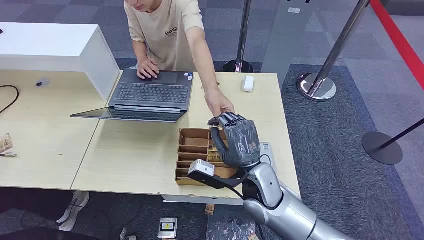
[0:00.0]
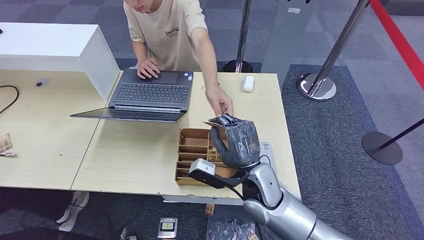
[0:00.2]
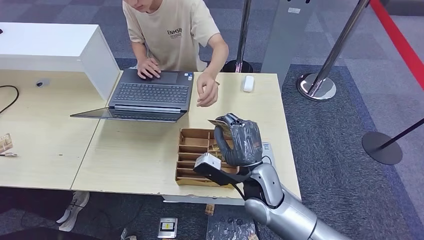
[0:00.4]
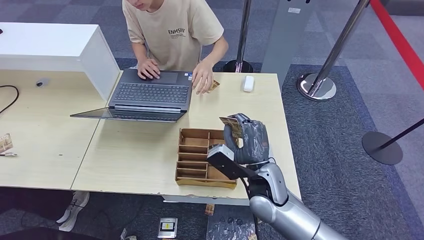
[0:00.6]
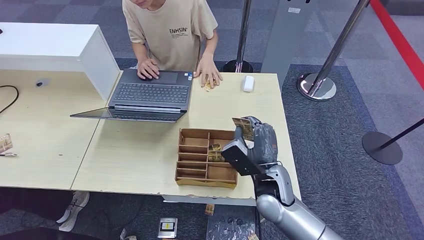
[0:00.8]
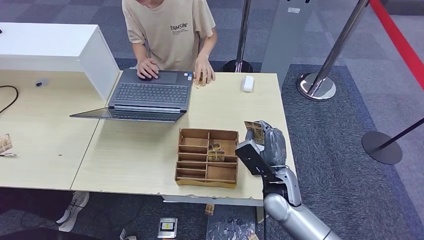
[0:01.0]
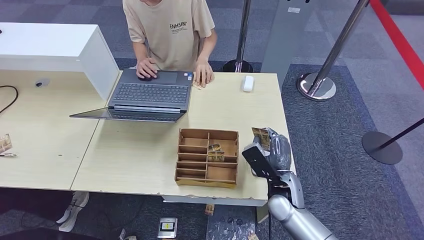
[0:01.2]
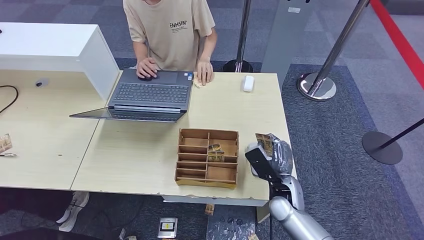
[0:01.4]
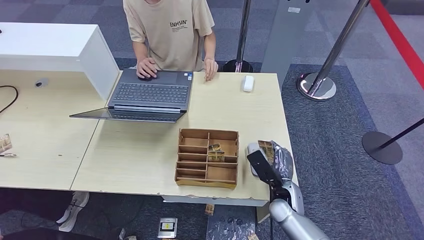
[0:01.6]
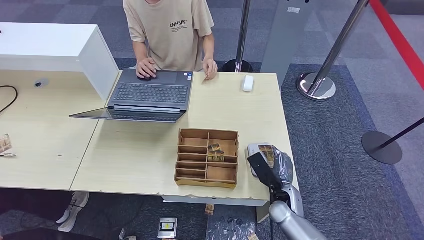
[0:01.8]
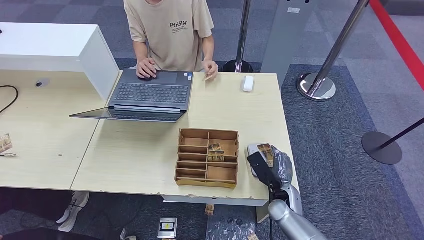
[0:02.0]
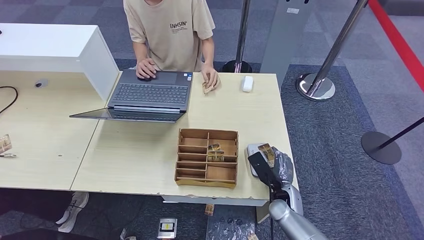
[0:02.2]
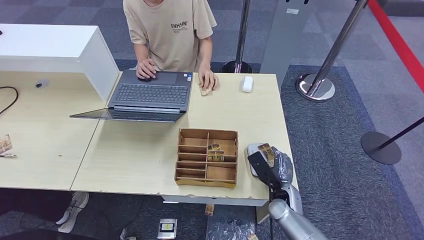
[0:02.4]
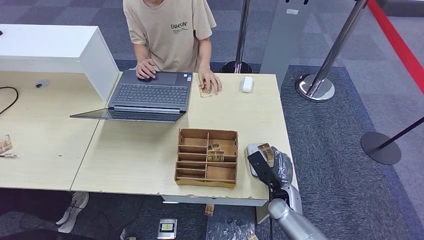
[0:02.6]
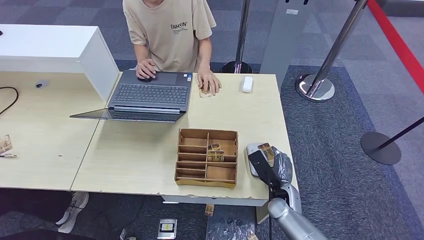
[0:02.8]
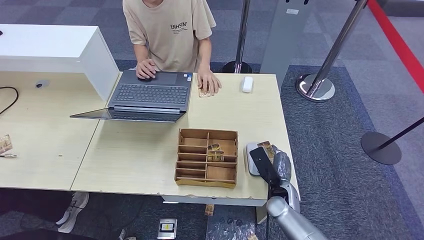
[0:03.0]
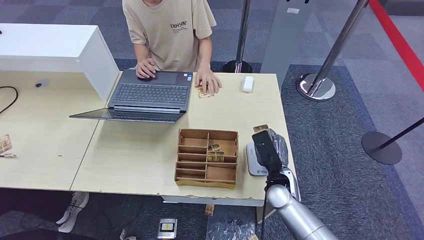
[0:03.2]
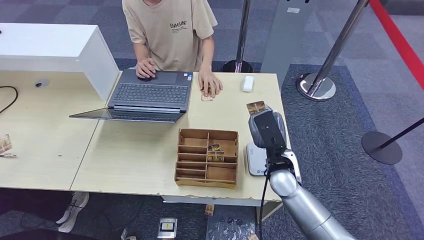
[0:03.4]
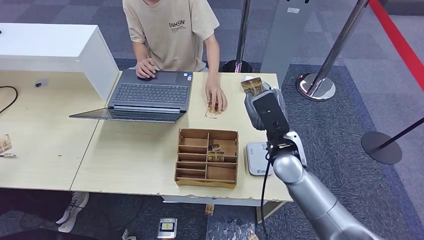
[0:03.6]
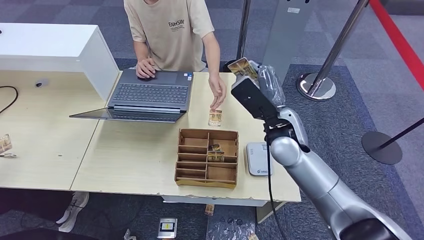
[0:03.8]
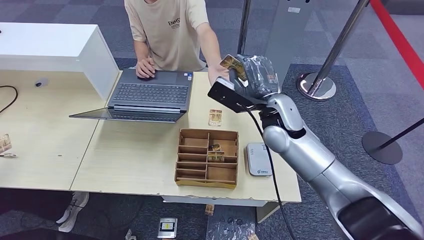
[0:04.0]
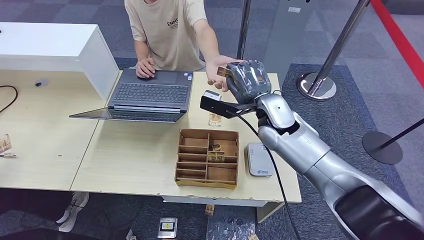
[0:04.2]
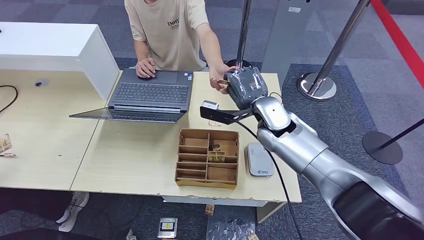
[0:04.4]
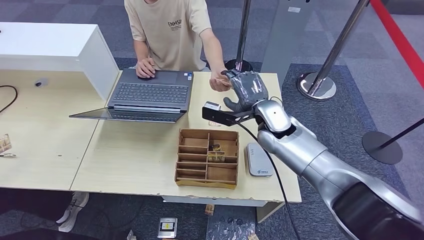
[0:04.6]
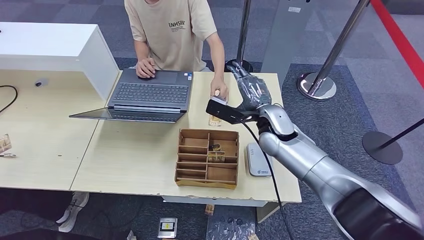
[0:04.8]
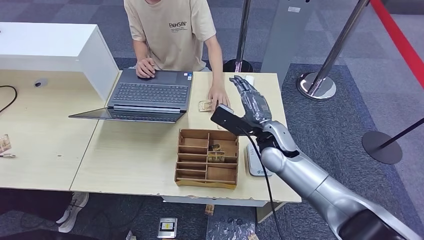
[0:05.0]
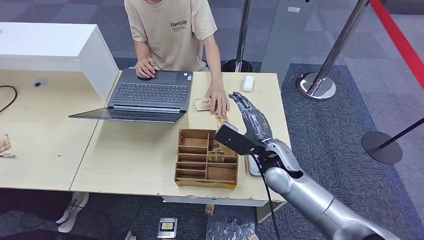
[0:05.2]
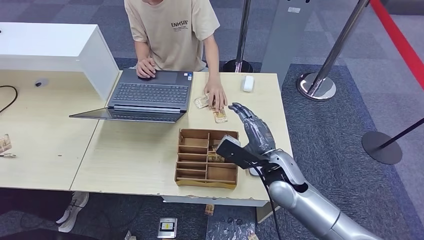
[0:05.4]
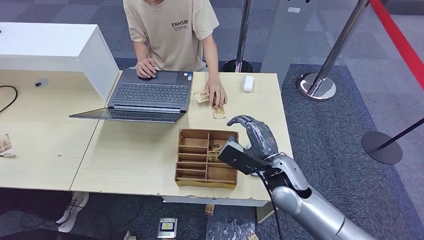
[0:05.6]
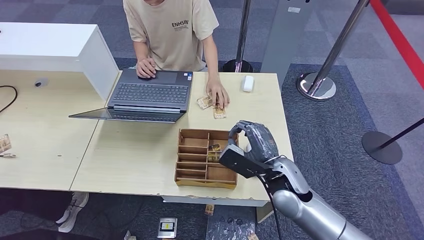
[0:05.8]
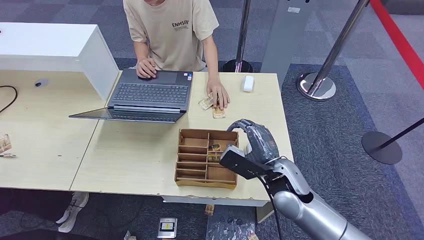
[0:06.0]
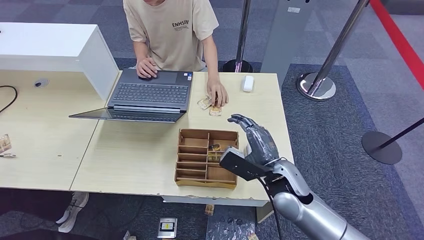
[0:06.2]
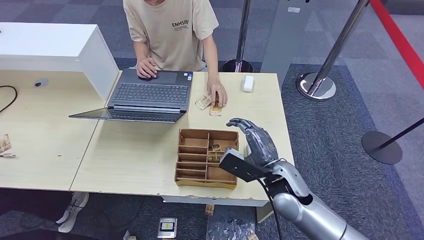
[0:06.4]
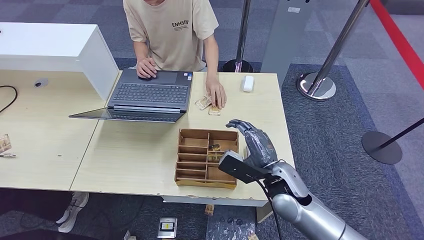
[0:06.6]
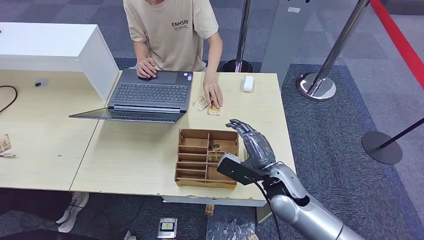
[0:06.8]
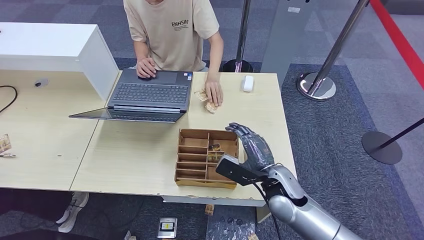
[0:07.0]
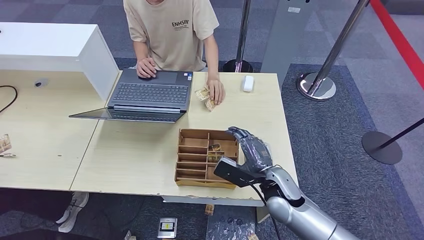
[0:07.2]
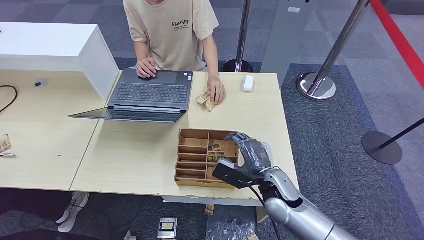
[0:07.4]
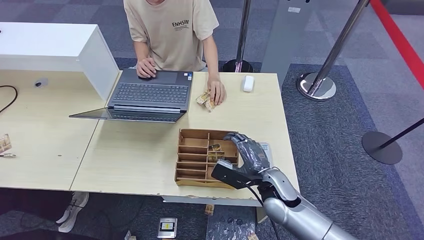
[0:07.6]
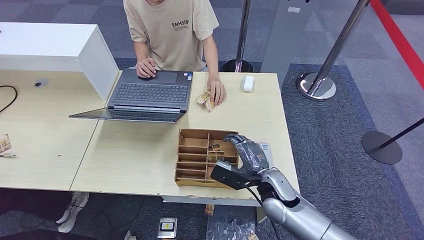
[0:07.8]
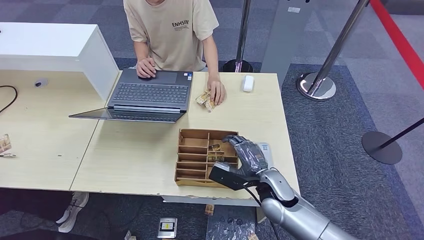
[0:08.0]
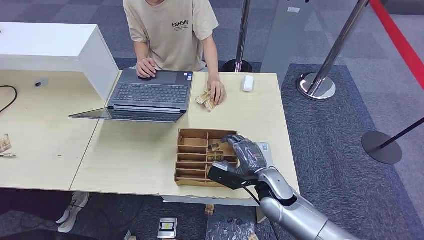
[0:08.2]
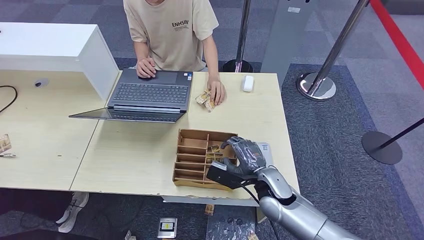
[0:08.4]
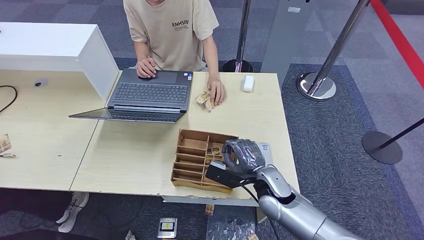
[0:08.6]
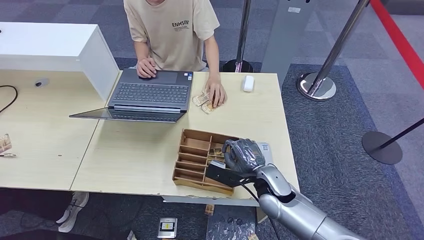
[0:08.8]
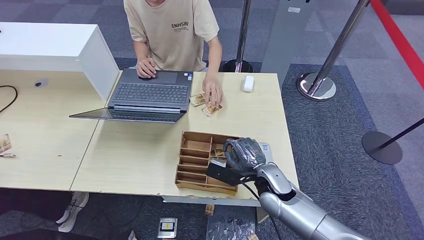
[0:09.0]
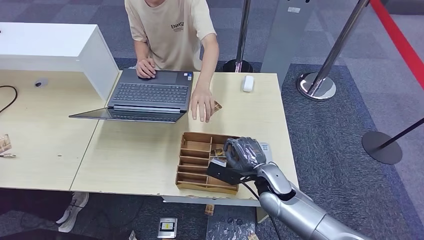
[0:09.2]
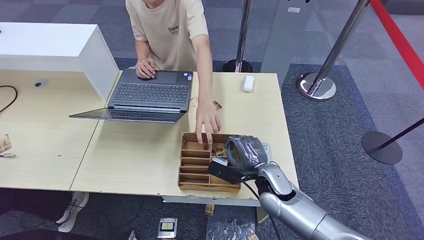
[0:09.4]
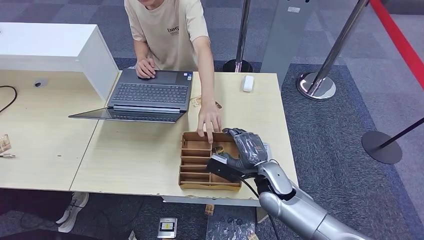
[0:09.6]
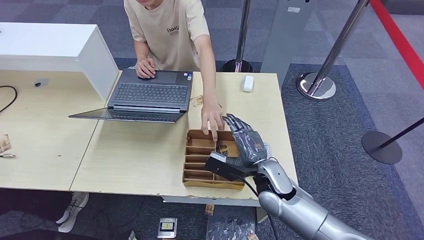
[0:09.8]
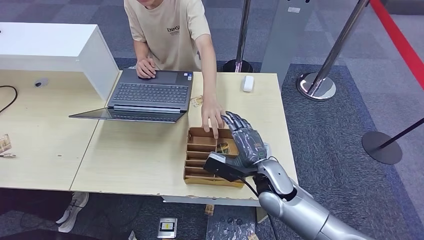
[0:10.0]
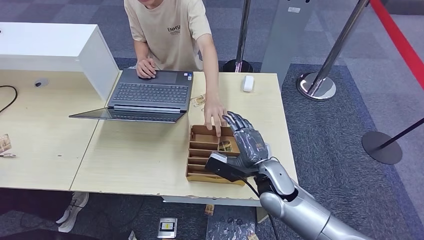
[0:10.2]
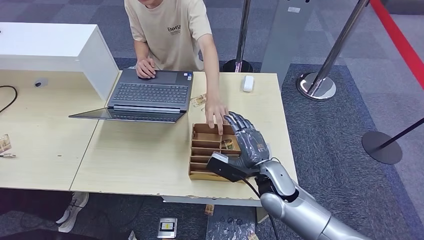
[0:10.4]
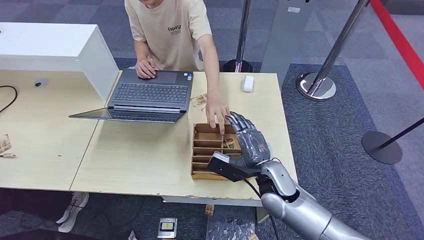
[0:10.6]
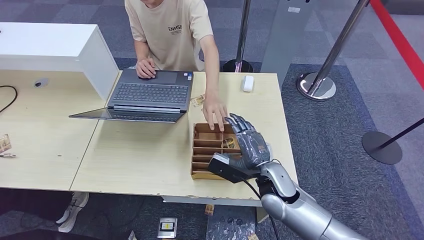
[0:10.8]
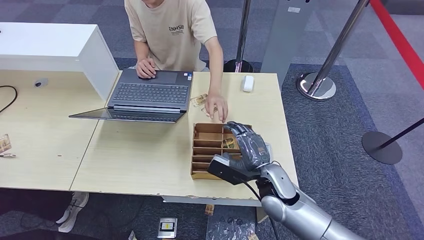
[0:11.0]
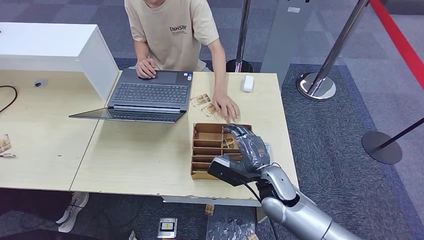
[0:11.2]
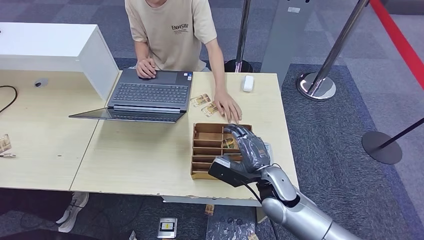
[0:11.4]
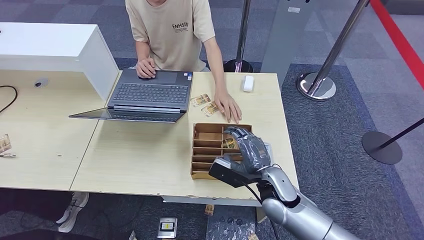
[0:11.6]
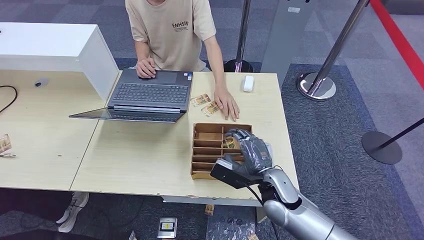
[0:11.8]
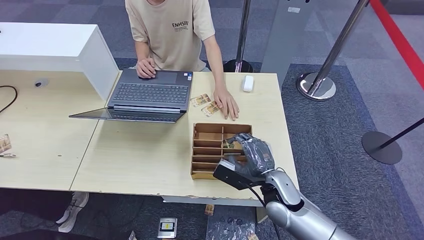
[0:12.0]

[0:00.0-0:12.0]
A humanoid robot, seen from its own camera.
Step, 0:00.0 to 0:00.8: Take the ID card from the person's hand.
Step, 0:01.0 to 0:02.6: Place the ID card on the card reader.
Step, 0:02.8 to 0:05.6: Hand the ID card to the person.
0:01.6 to 0:03.0: There are only small adjustments of the hands.
0:04.4 to 0:06.0: The right hand travels backward and downward by approximately 15 cm.
0:06.0 to 0:07.6: The right hand shifts some 5 cm downward.
0:07.6 to 0:12.0: The hands stay close to where they were, moving slightly.

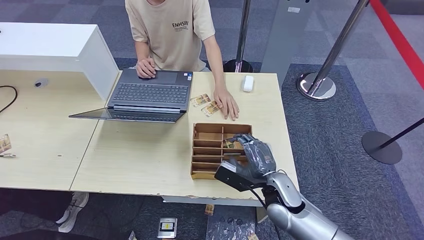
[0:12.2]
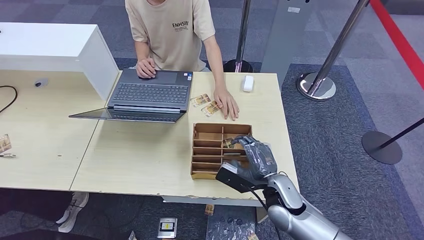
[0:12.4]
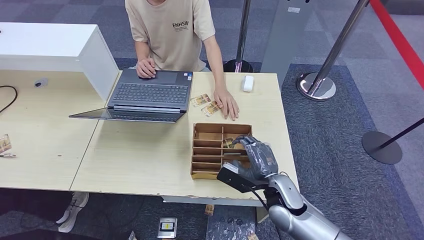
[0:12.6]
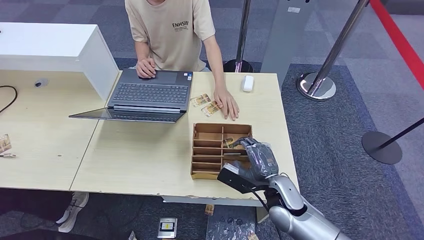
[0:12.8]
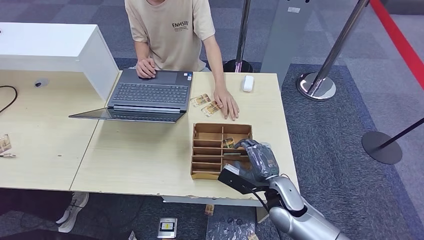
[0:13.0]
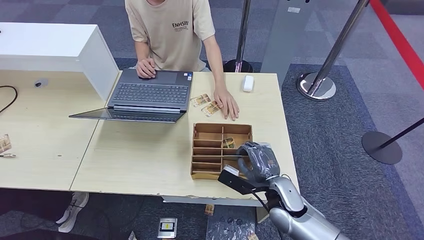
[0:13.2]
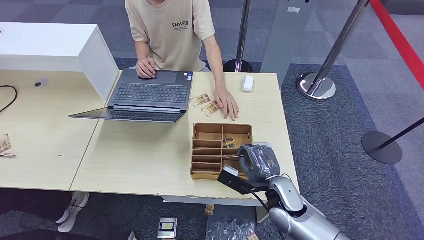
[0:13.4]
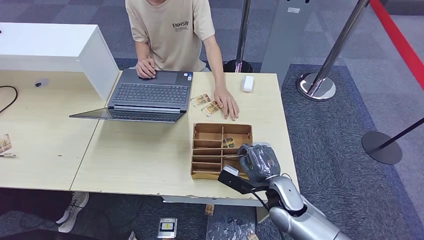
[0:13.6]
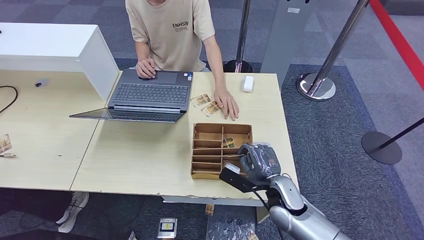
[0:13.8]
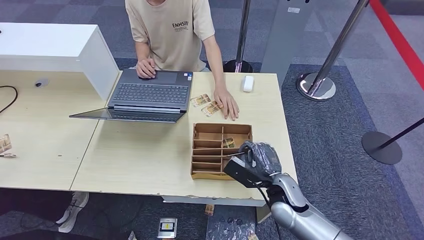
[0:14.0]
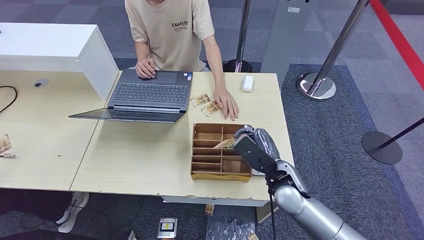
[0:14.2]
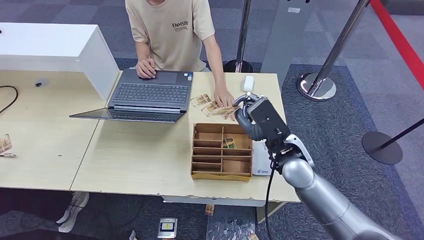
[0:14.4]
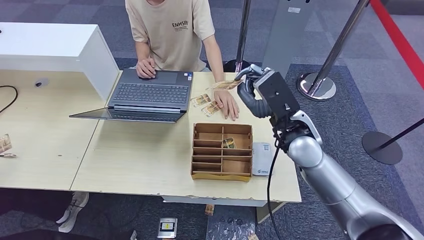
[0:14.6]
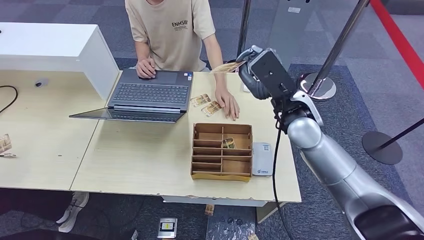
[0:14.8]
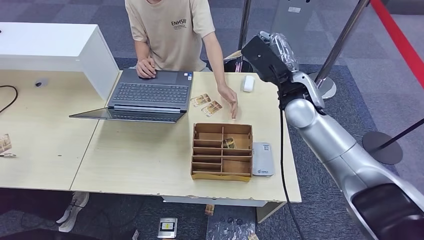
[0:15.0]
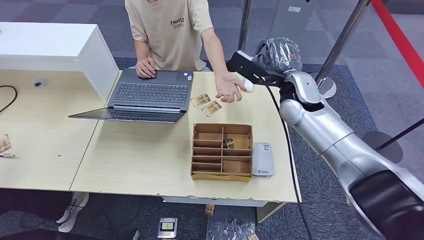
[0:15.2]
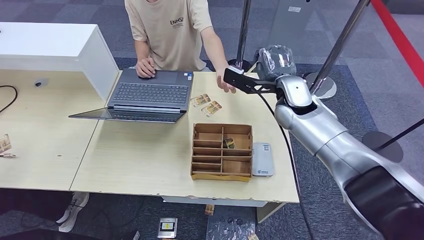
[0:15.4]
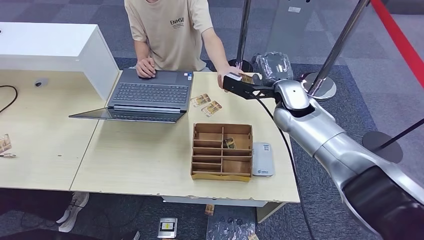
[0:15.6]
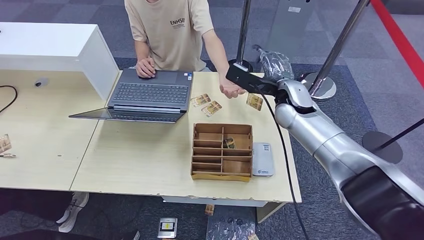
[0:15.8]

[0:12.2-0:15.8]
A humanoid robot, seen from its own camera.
Step, 0:12.2 to 0:14.4: Pick up the room key from the key card box.
Step, 0:14.6 to 0:15.8: Hand the room key to the person.
0:12.2 to 0:14.0: The hands make only small movements.
0:14.0 to 0:15.8: The right hand shifts roughly 25 cm upward and forward.
